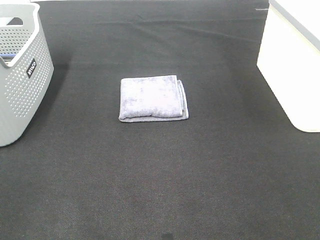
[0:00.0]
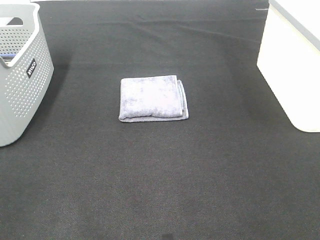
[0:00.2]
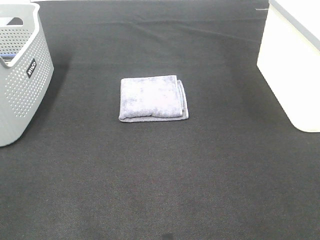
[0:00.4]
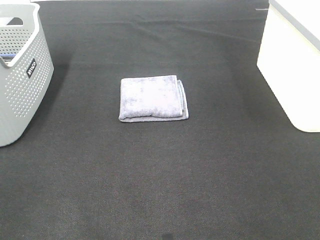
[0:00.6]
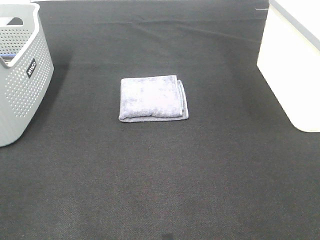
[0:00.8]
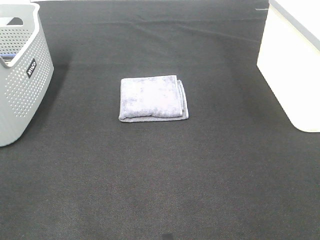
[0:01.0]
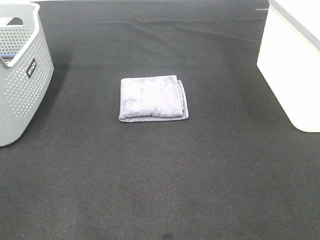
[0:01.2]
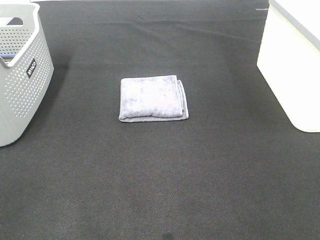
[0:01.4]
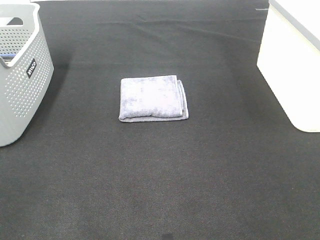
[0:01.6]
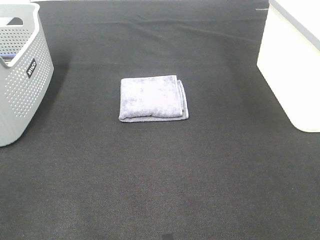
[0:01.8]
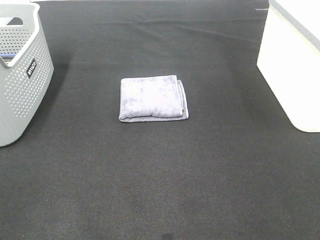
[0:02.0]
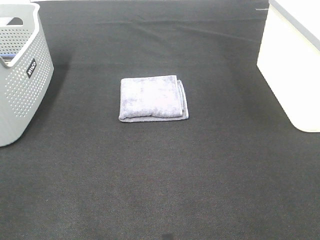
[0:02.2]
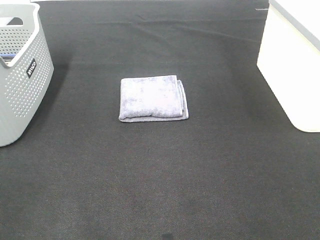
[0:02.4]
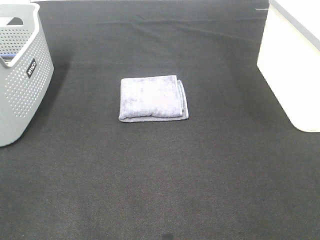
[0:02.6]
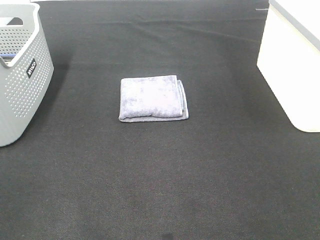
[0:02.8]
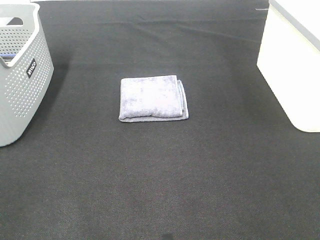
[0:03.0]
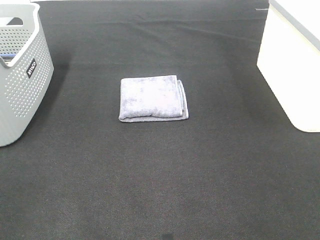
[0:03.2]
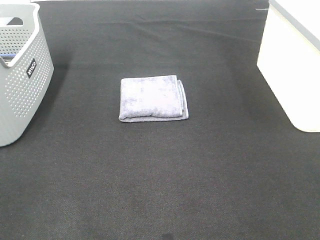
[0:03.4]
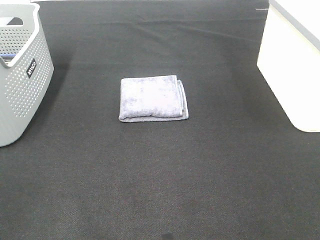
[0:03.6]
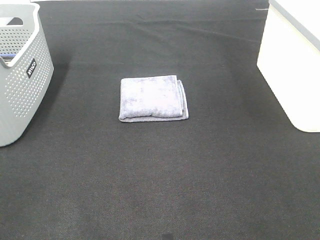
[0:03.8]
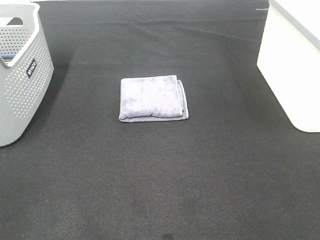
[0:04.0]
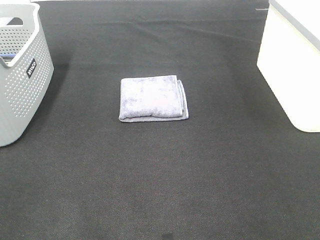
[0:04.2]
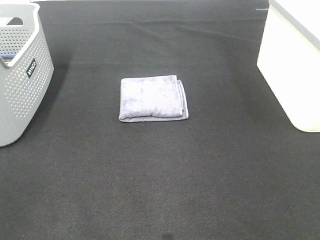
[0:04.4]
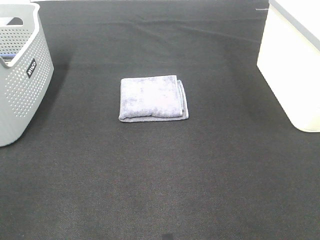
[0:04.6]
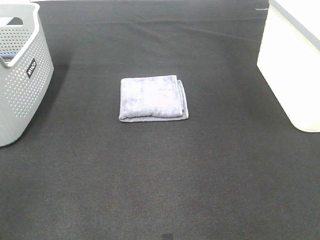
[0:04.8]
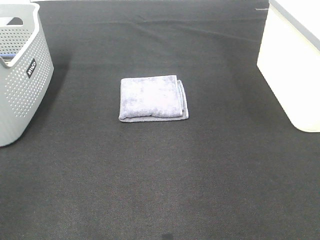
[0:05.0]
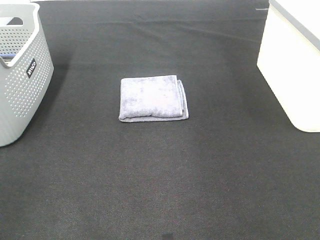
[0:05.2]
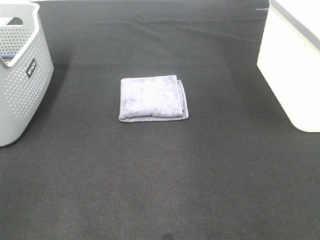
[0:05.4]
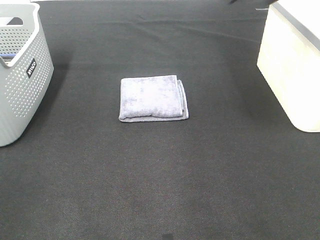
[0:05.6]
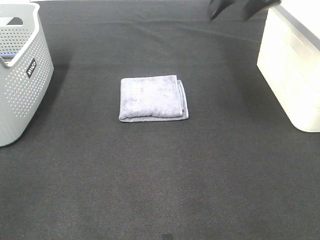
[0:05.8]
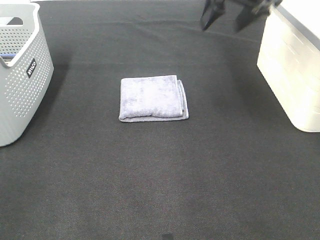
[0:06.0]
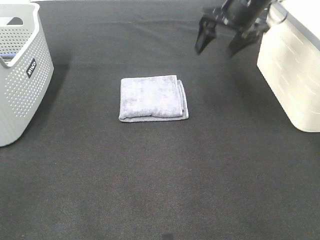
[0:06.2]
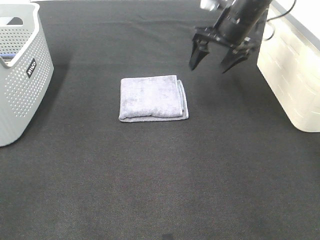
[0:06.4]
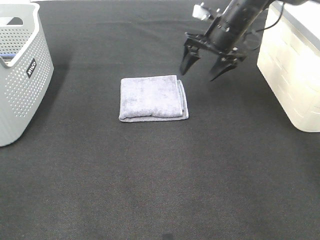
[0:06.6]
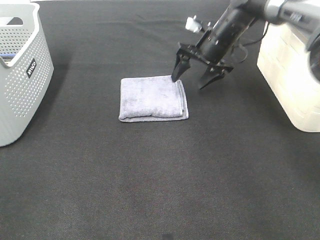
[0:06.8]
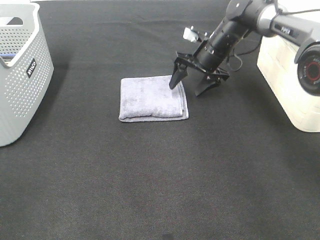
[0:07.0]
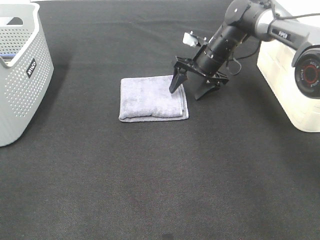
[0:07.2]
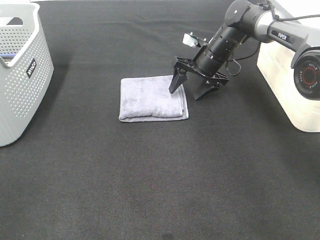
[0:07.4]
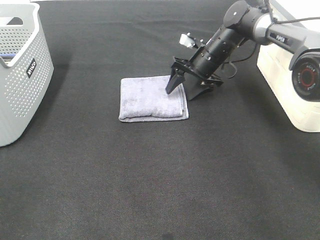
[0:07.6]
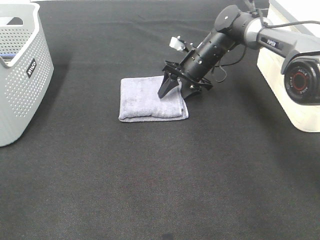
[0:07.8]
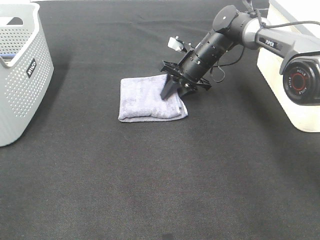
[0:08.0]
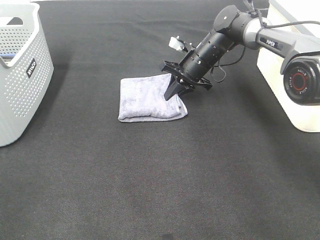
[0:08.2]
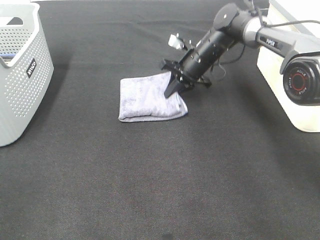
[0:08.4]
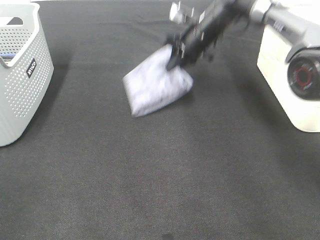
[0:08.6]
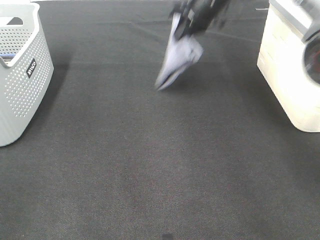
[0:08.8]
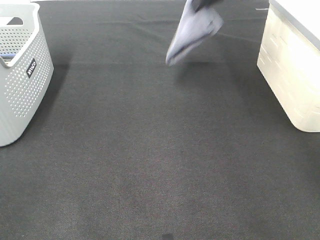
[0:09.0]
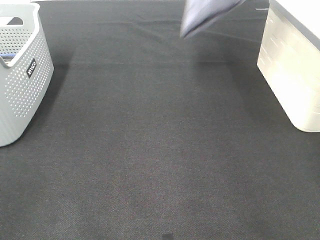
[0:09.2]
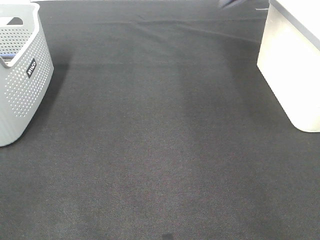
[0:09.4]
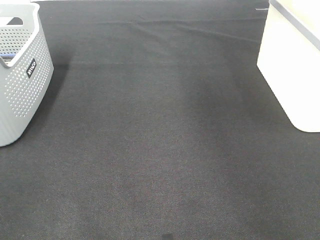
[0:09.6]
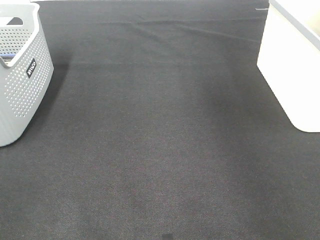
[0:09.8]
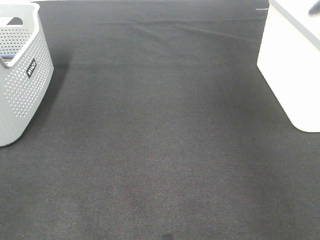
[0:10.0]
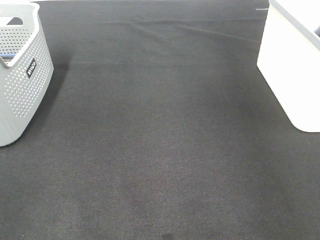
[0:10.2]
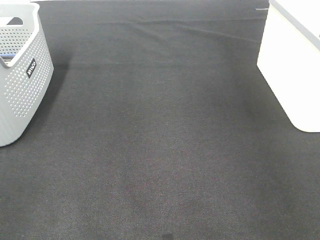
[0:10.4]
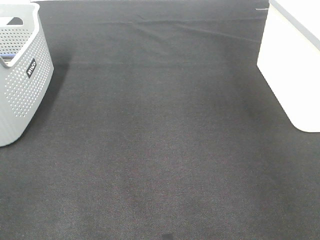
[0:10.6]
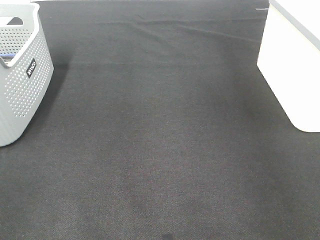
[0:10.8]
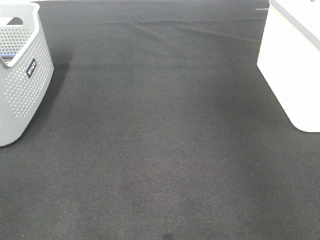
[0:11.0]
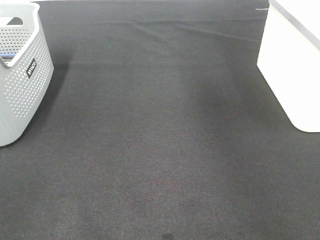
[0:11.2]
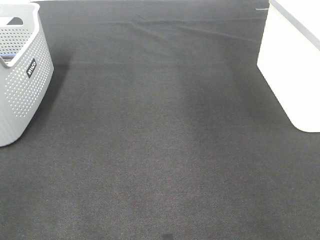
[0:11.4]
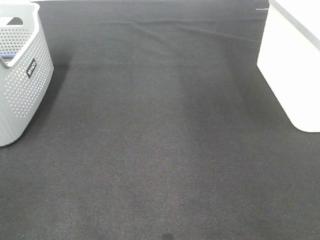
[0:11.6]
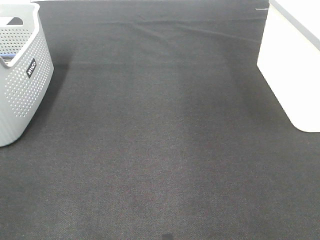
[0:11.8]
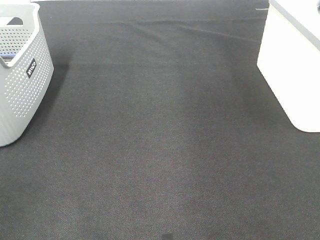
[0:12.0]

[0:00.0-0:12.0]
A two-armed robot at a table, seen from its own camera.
Step, 0:00.0 to 0:08.2: Right hand: grab the folded grey towel.
Step, 0:08.4 to 0:10.6: Right hand: place the grey towel in right basket.
0:00.0 to 0:03.0: Both grippers stay about where they are.
0:04.4 to 0:06.0: The right gripper shifts approximately 35 cm forward.
0:06.0 to 0:07.6: The right gripper heads downward, covering about 20 cm.
0:07.6 to 0:09.0: The right gripper travels upward by some 20 cm, and closes up.
0:09.0 to 0:10.4: The right gripper heads to the right, covering roughly 25 cm, and opens its fingers.

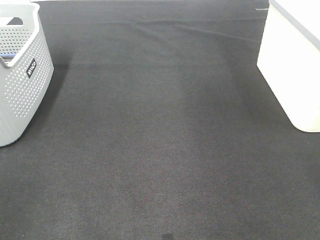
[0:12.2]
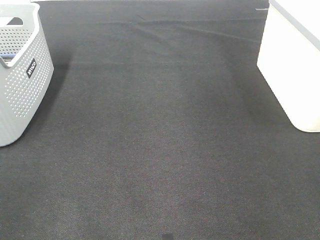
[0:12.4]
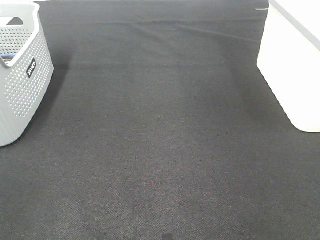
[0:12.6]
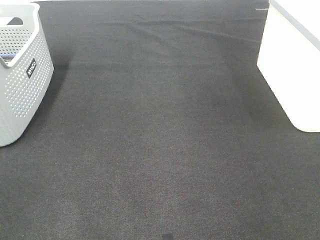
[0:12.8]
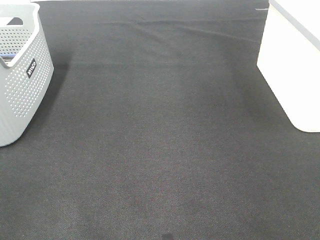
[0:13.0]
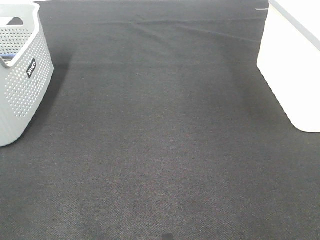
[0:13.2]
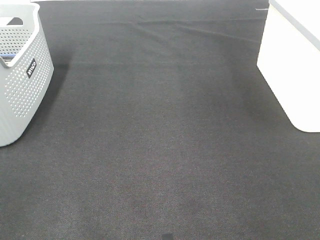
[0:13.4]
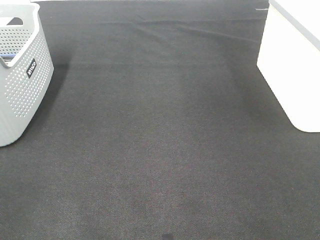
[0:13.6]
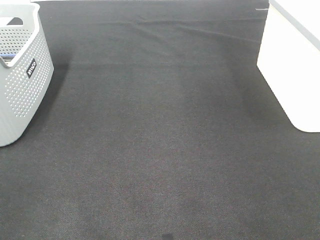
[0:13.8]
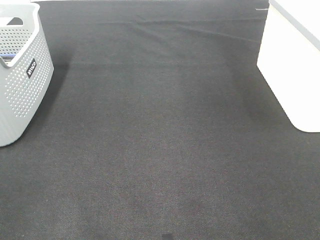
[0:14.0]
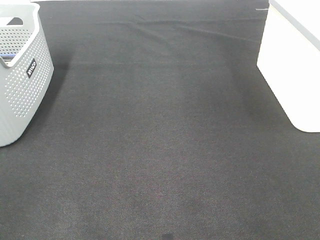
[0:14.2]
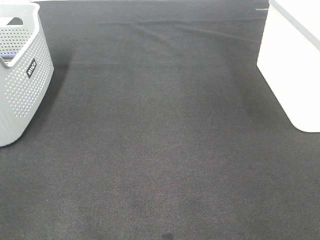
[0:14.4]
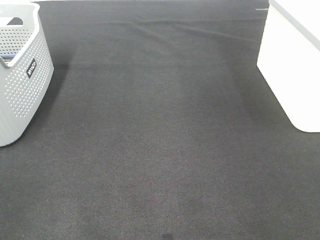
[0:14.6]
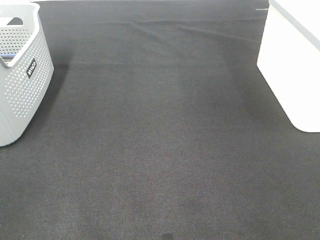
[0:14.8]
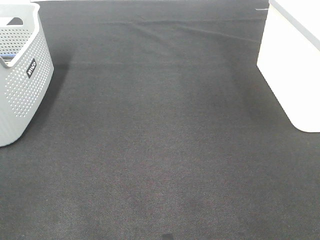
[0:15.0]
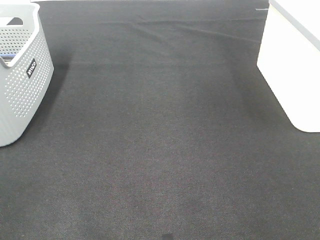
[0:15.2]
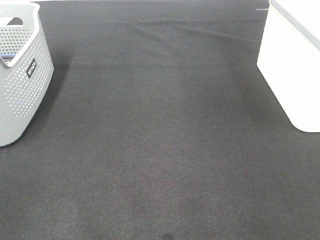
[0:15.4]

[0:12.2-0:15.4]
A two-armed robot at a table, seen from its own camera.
0:13.8 to 0:15.4: The two grippers keep their place.
